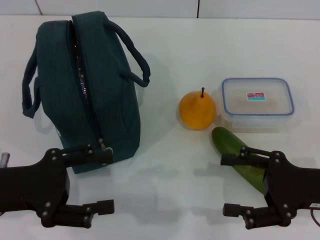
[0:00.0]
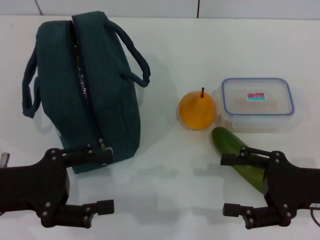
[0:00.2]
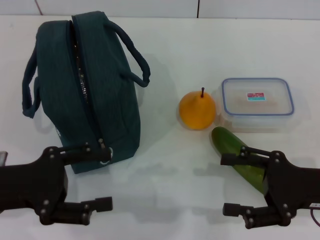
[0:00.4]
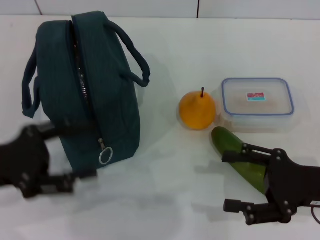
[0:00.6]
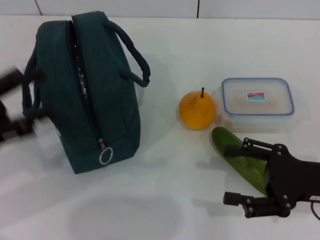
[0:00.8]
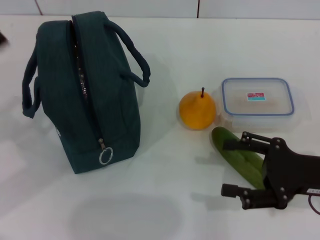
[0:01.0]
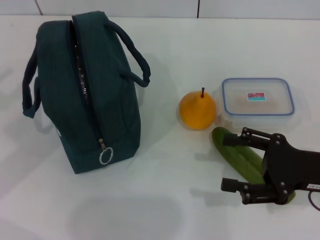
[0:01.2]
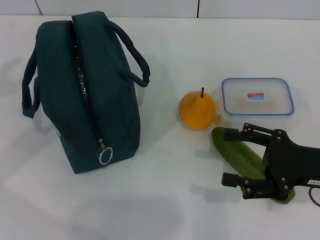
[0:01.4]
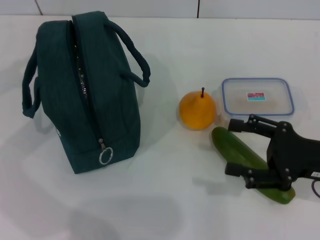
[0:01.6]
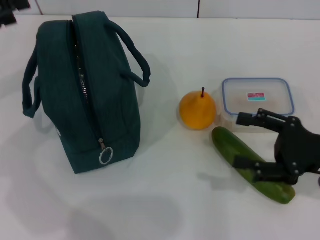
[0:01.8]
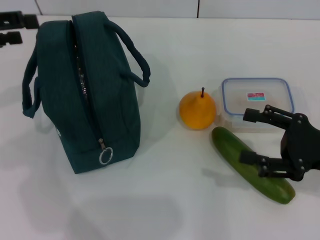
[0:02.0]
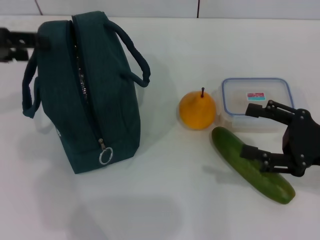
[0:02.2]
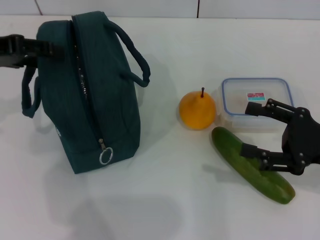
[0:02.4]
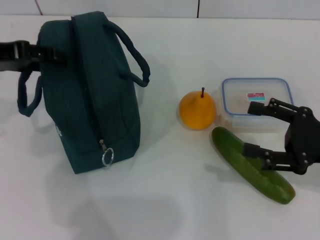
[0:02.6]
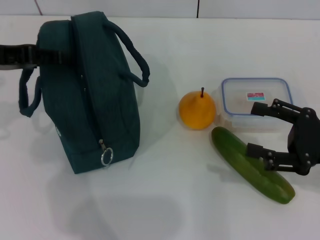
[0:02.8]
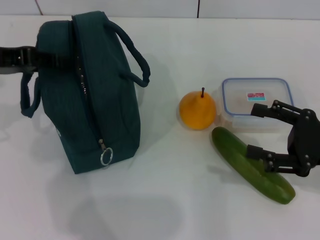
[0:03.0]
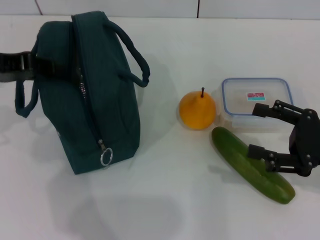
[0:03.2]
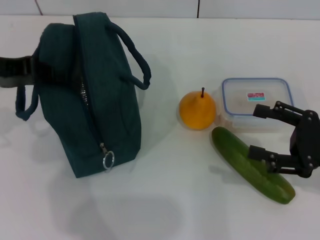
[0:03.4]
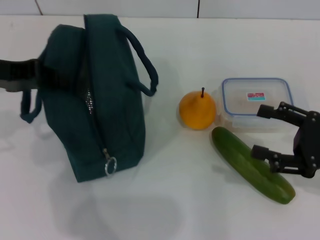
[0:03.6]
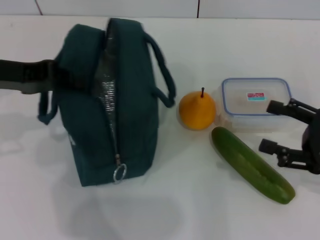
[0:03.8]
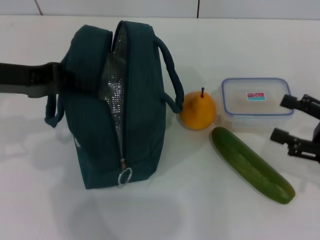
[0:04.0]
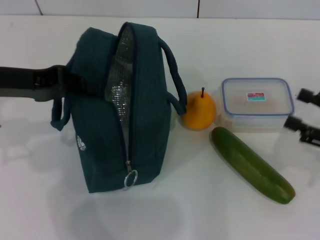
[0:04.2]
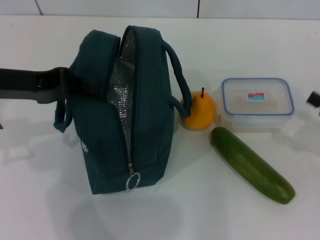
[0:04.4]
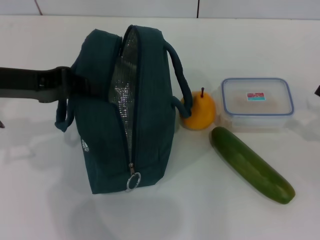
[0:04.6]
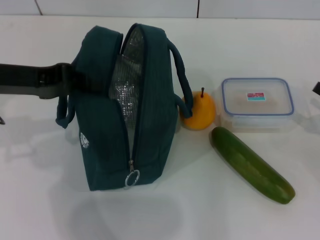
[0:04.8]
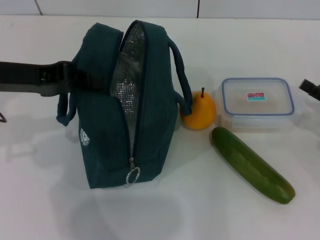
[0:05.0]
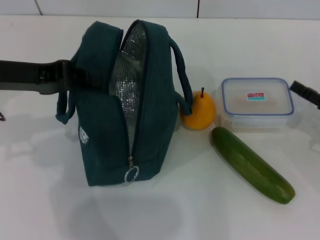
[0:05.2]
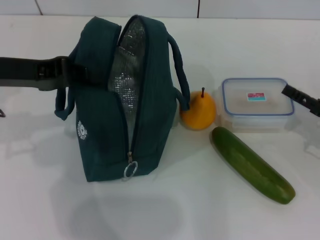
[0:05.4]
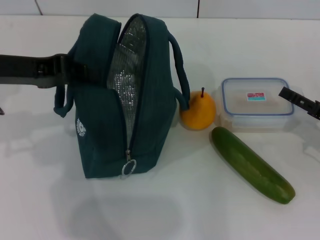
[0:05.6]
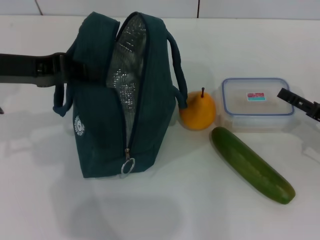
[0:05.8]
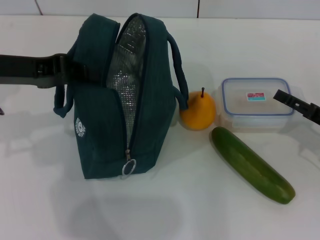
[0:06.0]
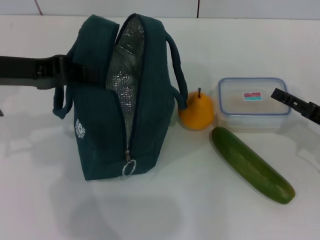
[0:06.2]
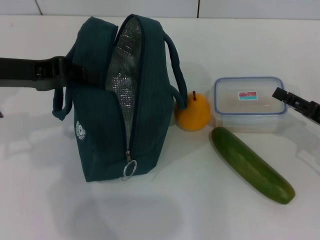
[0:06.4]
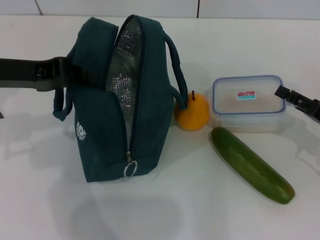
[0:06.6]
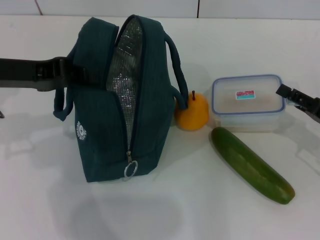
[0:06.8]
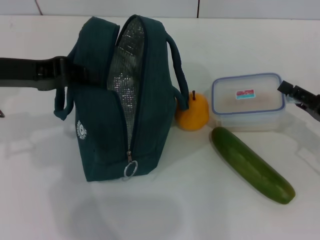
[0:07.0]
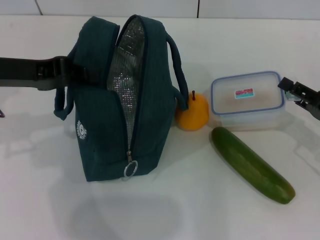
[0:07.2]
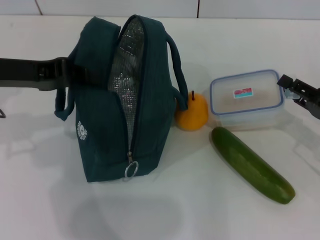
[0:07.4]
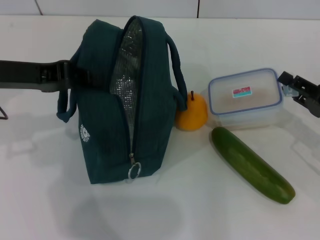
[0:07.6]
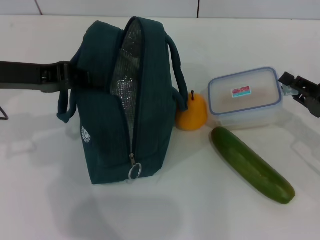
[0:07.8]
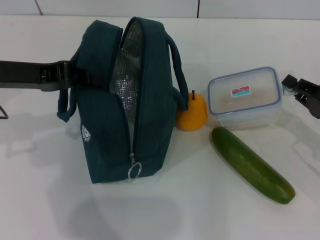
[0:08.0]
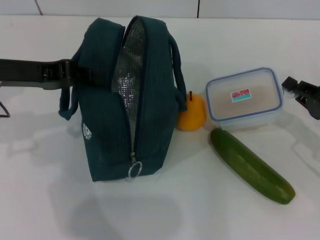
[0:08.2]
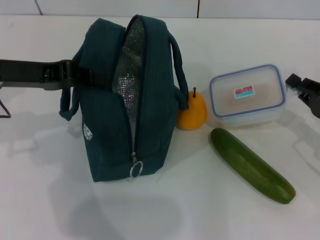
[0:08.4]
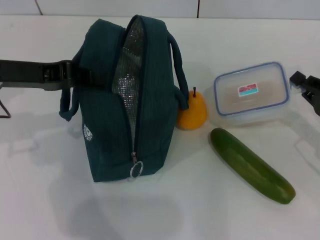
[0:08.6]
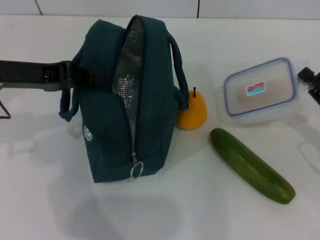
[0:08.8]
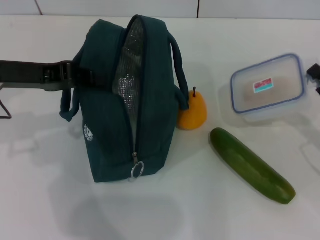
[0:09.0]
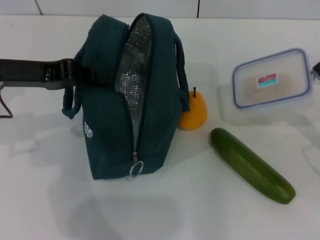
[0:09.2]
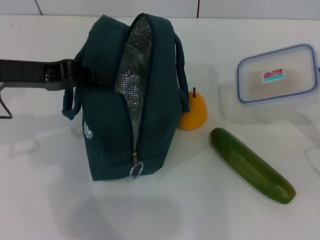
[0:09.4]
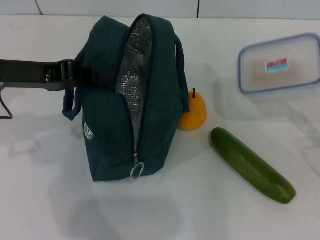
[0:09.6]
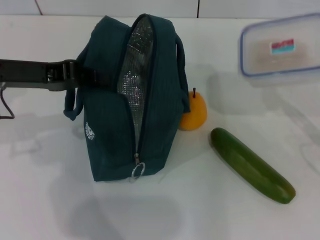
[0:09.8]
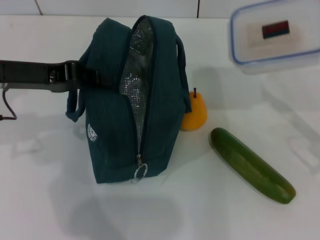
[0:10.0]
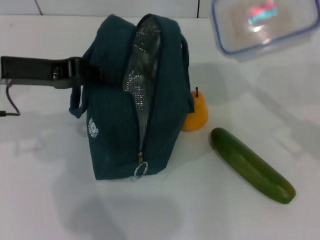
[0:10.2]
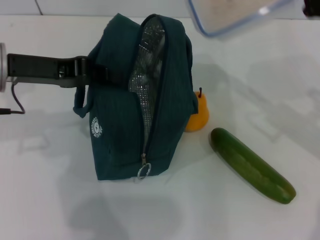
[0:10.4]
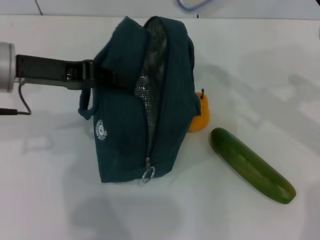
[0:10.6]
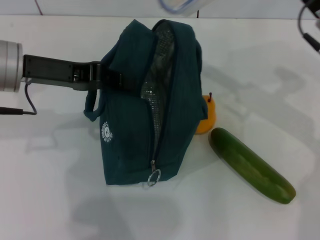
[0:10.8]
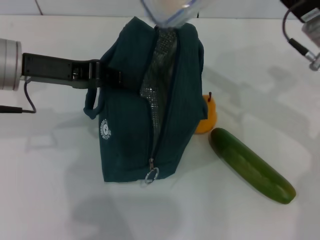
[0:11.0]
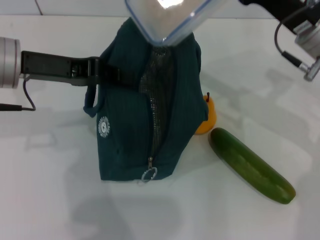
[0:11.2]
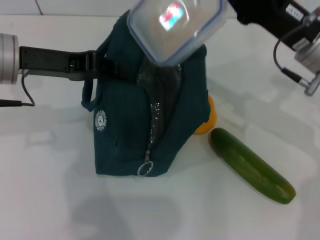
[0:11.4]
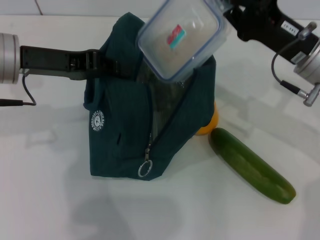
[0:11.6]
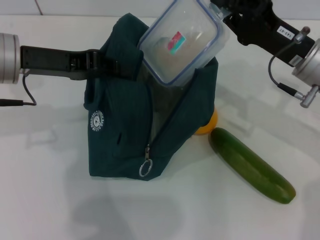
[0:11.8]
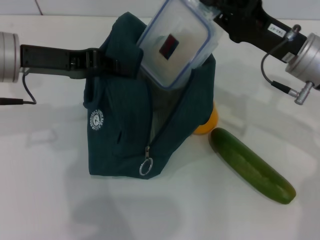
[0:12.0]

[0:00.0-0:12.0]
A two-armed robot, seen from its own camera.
Step, 0:00.0 to 0:03.2: Hold the lunch bag with your left hand.
Step, 0:03.6 to 0:08.2: Pick up the lunch box with your right hand.
0:00.0 to 0:01.6: The left gripper heads forward, to the left and upward, covering roughly 15 cm.
0:01.6 to 0:03.0: The left gripper heads to the right, covering roughly 5 cm.
0:03.0 to 0:04.4: The right gripper travels to the right by roughly 5 cm. Meanwhile the left gripper closes.
0:04.4 to 0:06.0: The right gripper shifts by approximately 5 cm.
0:06.0 to 0:07.6: The right gripper closes its fingers.
0:07.6 to 0:09.0: The right gripper closes its fingers.
0:09.0 to 0:10.4: The right gripper is displaced upward, to the left and forward by some 15 cm.
0:10.4 to 0:12.0: The right gripper shifts about 5 cm to the left.

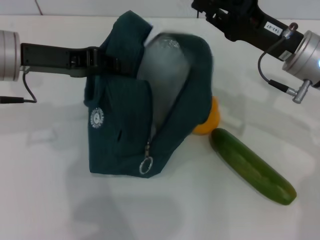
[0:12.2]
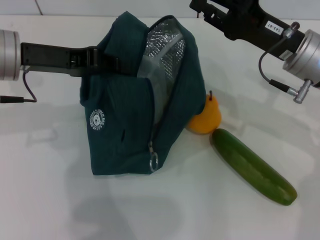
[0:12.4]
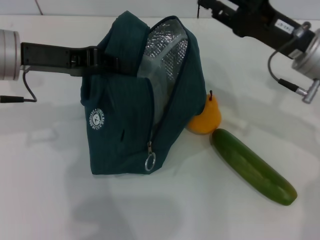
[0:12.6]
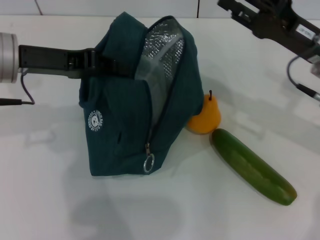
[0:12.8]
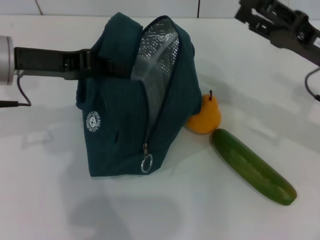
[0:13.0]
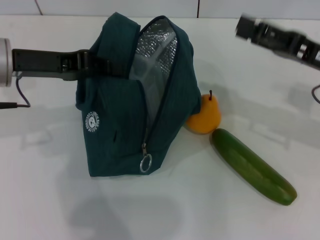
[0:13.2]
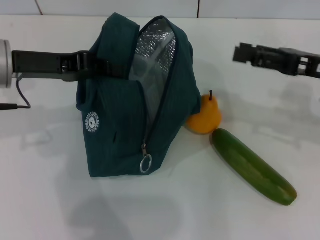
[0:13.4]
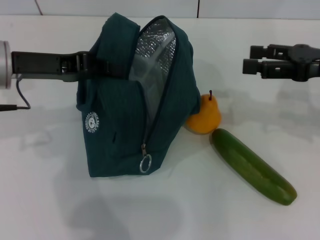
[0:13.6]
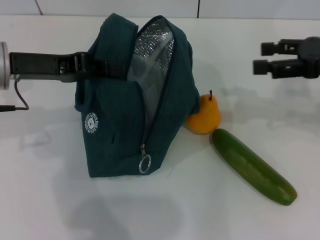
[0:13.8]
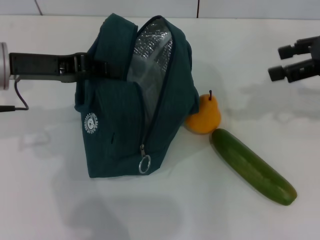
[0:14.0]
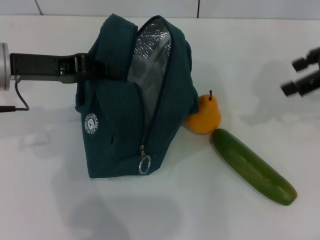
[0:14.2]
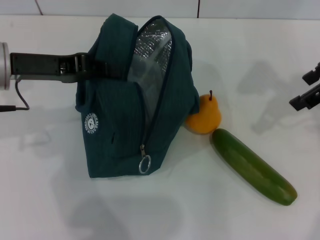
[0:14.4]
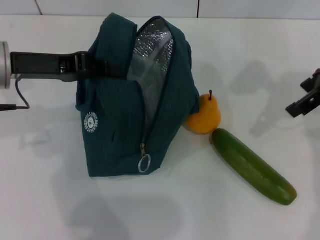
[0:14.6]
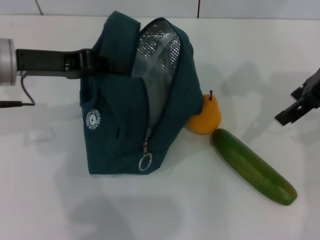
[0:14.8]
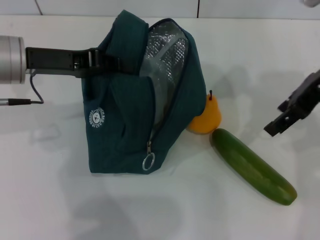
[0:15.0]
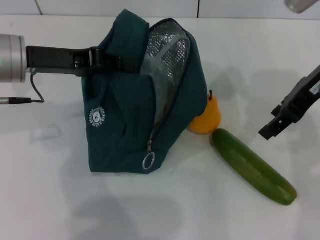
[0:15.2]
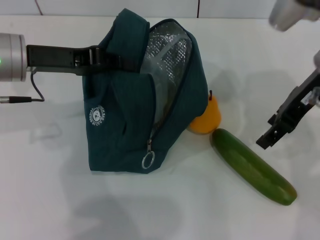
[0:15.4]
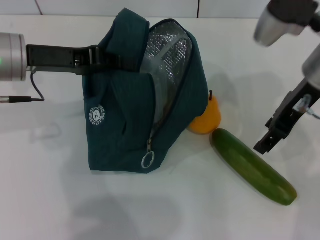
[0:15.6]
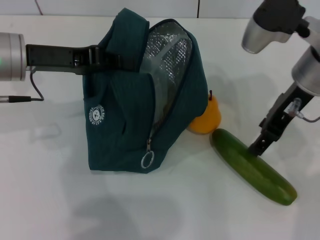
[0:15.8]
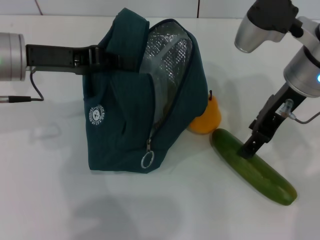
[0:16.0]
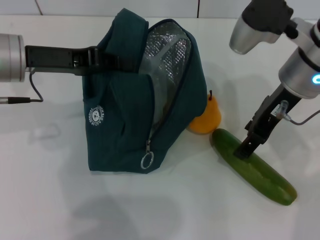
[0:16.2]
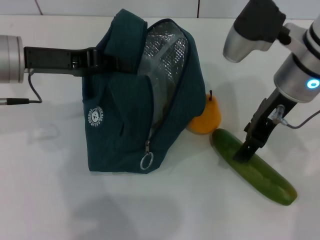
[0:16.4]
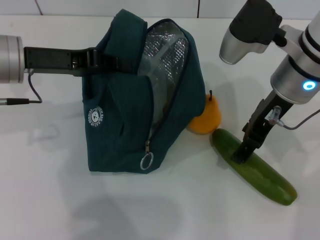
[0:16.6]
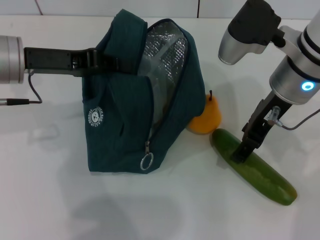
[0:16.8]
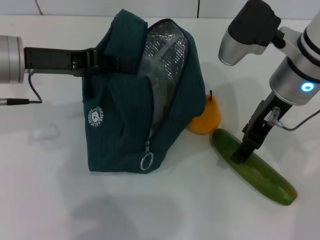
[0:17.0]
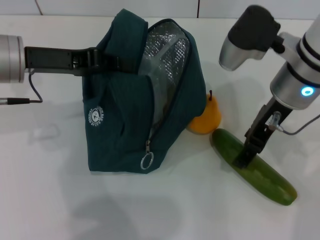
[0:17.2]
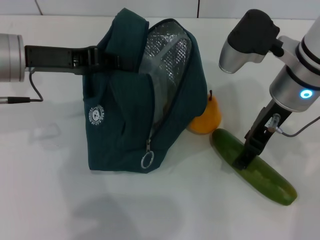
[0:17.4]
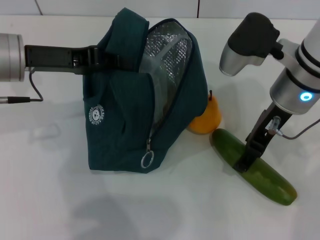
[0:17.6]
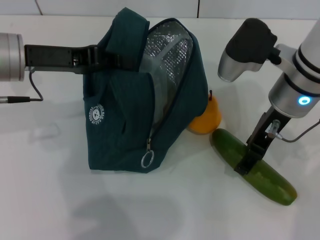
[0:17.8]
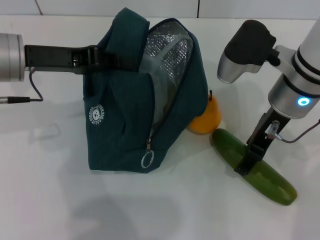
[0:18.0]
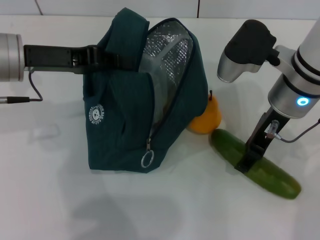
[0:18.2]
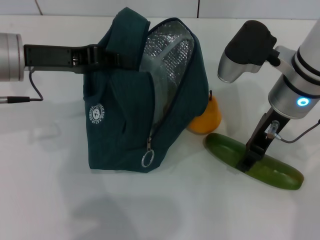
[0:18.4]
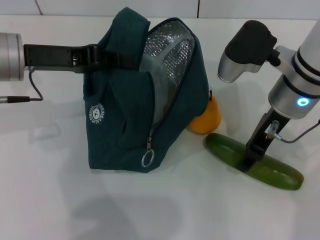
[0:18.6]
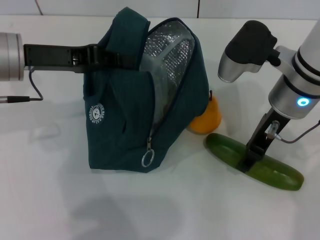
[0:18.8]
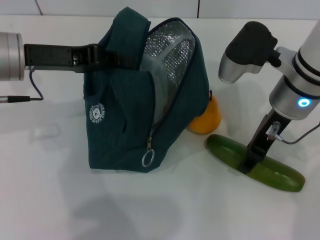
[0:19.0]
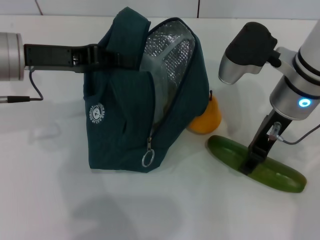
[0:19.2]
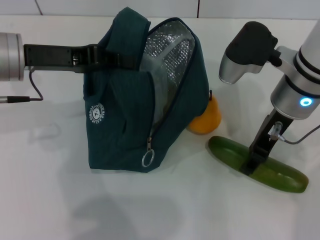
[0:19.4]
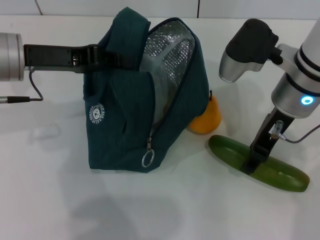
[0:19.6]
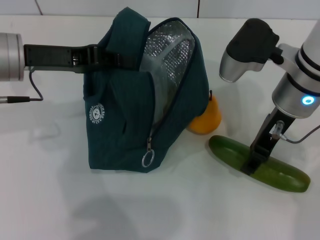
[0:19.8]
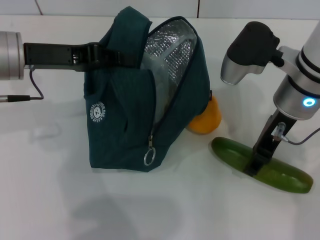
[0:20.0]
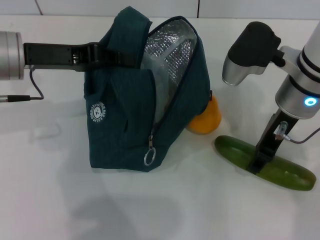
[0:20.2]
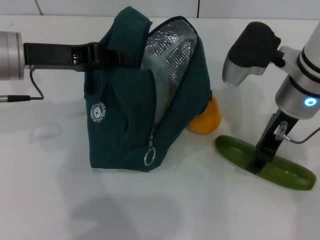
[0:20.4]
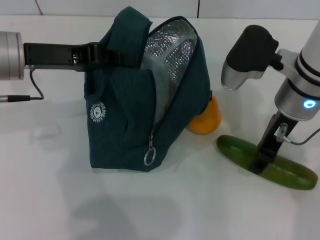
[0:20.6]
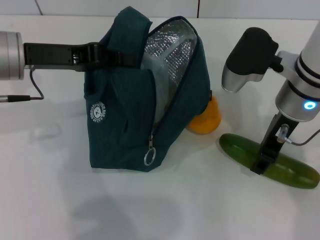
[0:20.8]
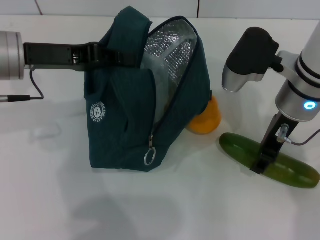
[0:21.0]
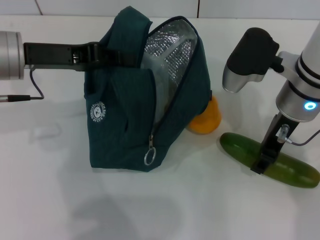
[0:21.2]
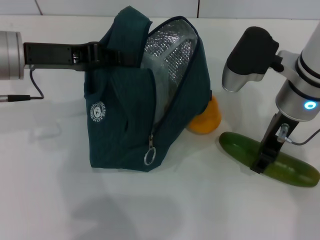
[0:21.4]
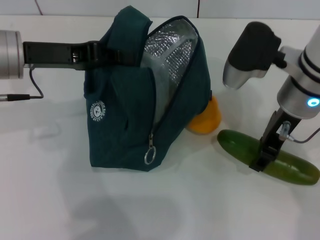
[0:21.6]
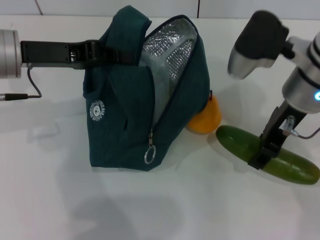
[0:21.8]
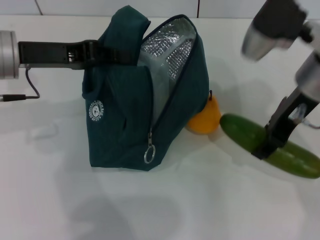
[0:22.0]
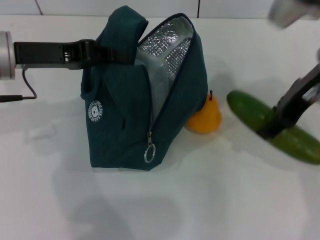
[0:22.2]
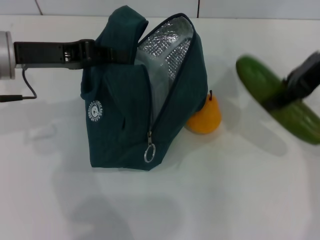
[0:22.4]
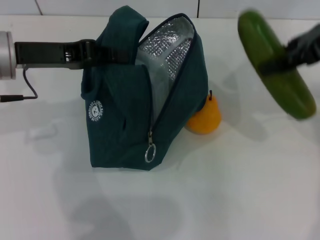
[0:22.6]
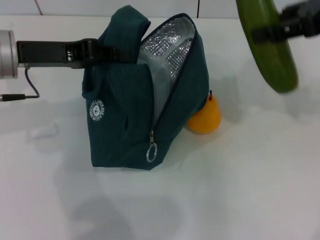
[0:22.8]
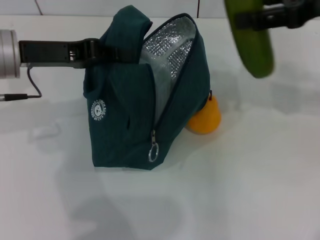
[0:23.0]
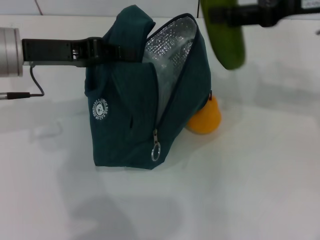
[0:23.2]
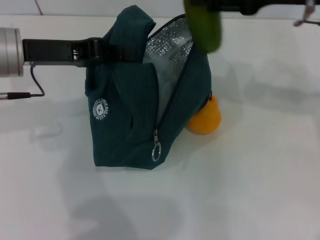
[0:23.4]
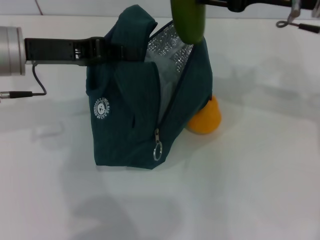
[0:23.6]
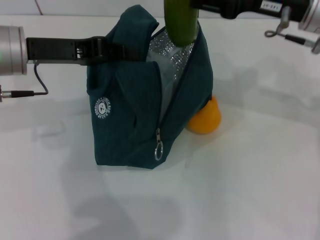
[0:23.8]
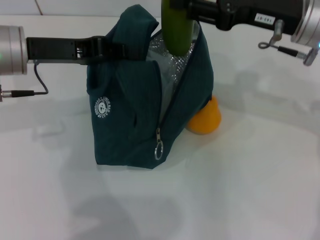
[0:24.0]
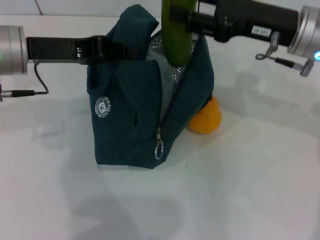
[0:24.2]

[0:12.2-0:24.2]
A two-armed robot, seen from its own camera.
Step, 0:12.6 to 0:18.6: Pick up the cucumber with your right hand.
0:12.2 to 0:13.8: The right gripper shifts roughly 10 cm to the right and upward, and opens.
0:13.8 to 0:15.2: The right gripper travels to the left by roughly 10 cm.
0:15.2 to 0:16.6: The right gripper heads to the left, covering some 5 cm.
0:16.6 to 0:18.2: There are only small adjustments of the grippers.
0:18.2 to 0:19.8: Both grippers stay about where they are.
0:19.8 to 0:21.2: There are only small adjustments of the grippers.
0:21.2 to 0:22.6: The right gripper moves upward and to the right, about 15 cm.
0:22.6 to 0:24.2: The right gripper travels downward and to the left by approximately 10 cm.
